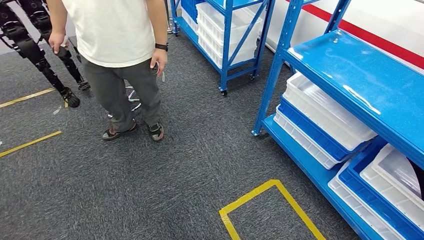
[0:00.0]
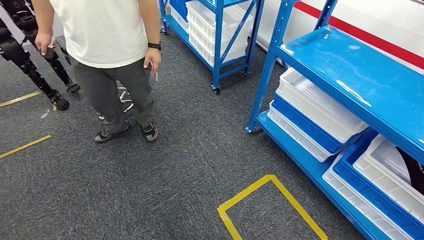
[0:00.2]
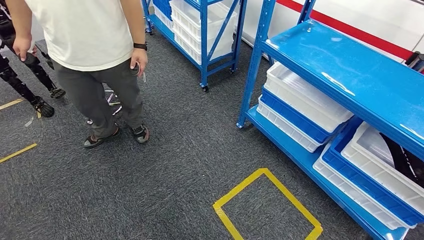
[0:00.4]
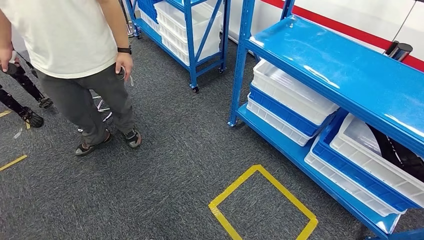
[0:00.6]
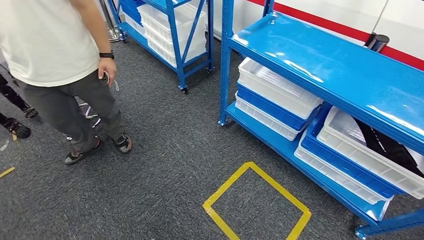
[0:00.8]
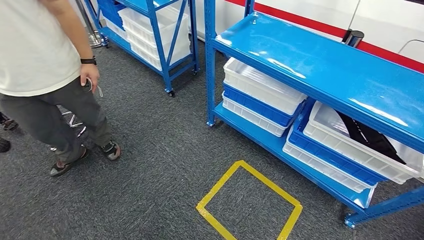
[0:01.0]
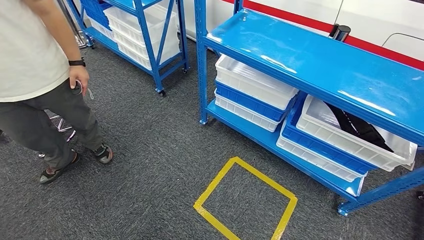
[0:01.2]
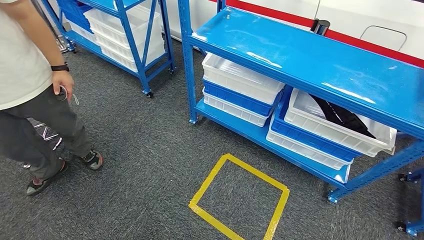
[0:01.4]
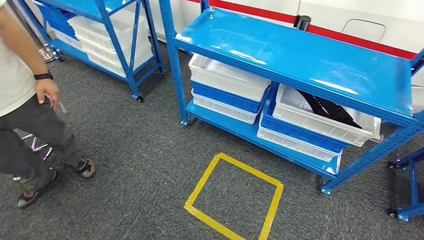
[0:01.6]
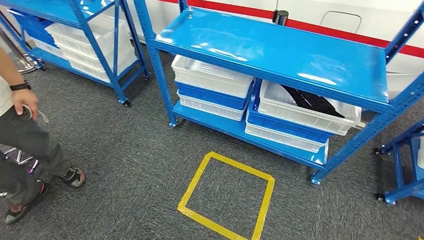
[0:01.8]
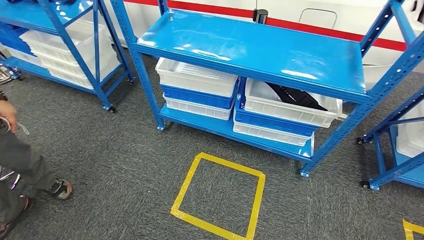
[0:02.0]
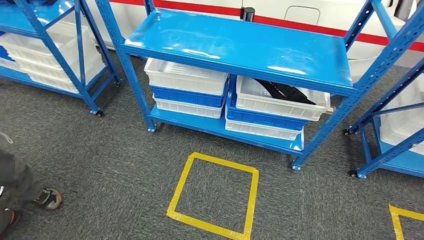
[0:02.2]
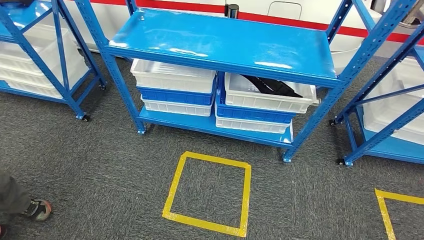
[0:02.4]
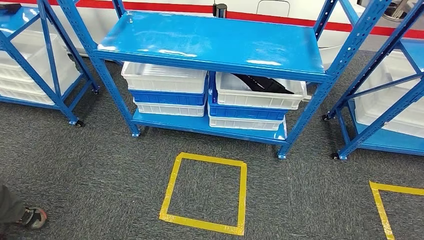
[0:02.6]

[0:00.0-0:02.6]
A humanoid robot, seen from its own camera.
Step, 0:00.0 to 0:02.6: Move to the initial position of the shelf.
